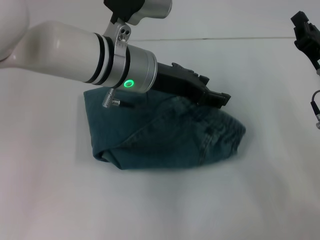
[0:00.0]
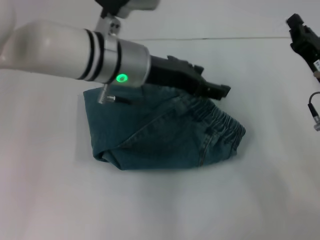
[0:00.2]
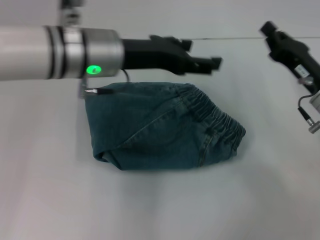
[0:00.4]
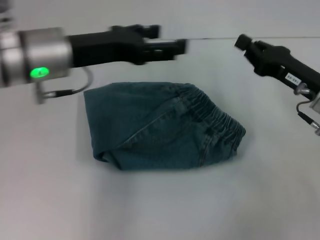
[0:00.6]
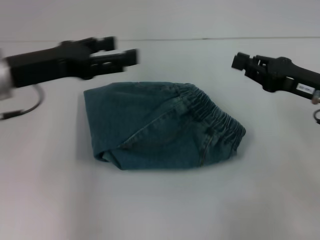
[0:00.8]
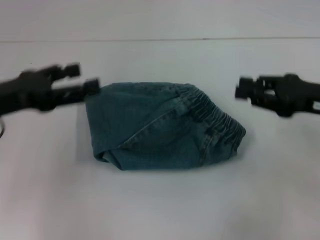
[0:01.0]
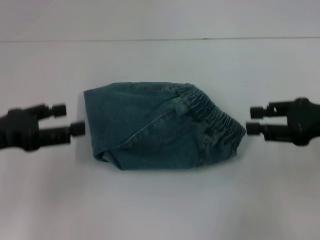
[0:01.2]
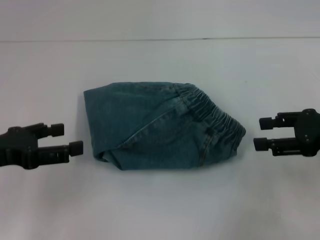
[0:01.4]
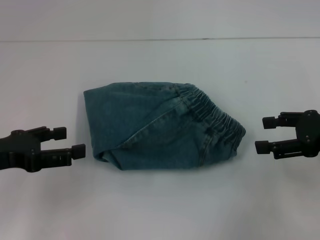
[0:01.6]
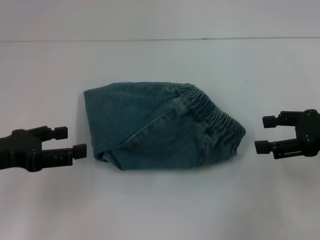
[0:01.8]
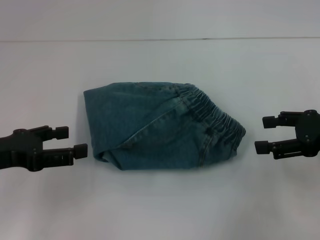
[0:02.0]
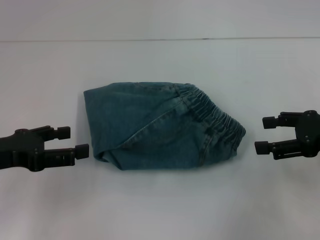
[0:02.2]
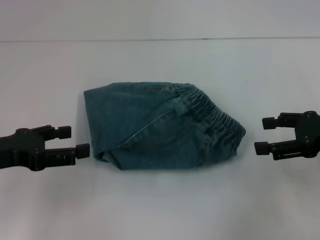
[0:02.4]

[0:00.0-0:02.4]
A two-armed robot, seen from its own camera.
0:00.0 to 0:01.2: The right gripper is displaced upward by roughly 5 cm, while the left gripper travels to the left and backward by some 25 cm, and opens its fingers.
0:01.2 to 0:02.4: The right gripper opens up.

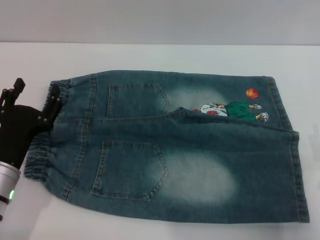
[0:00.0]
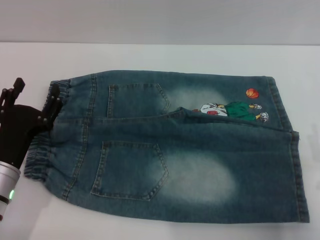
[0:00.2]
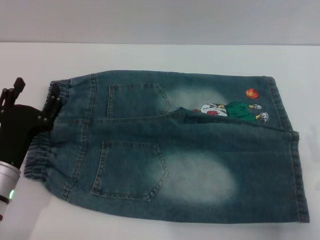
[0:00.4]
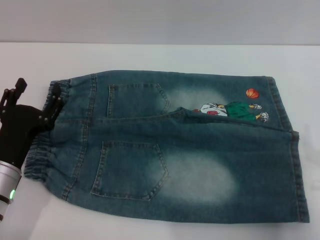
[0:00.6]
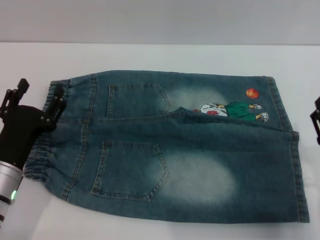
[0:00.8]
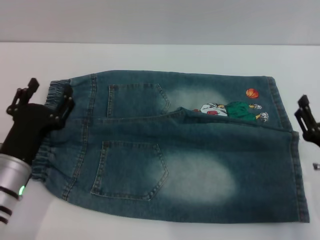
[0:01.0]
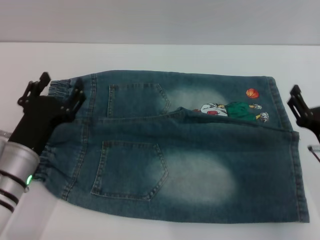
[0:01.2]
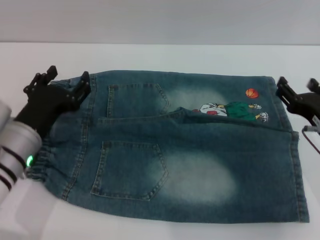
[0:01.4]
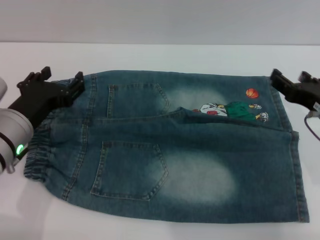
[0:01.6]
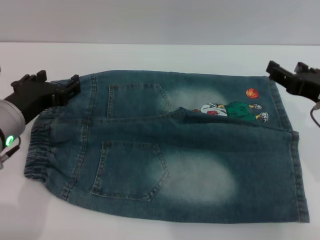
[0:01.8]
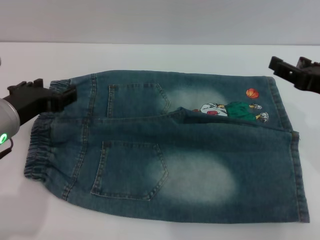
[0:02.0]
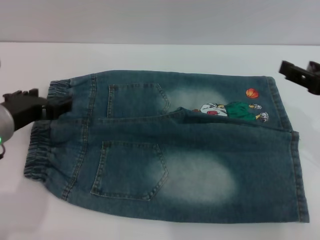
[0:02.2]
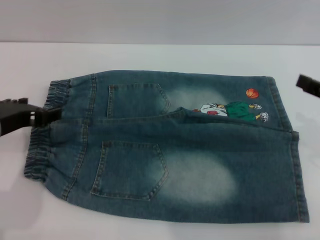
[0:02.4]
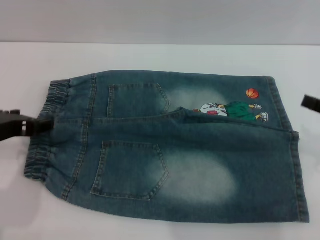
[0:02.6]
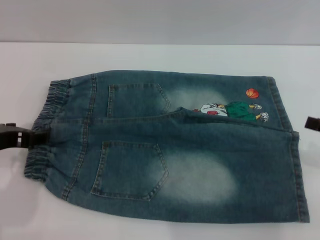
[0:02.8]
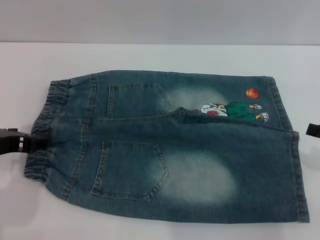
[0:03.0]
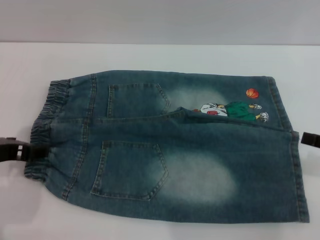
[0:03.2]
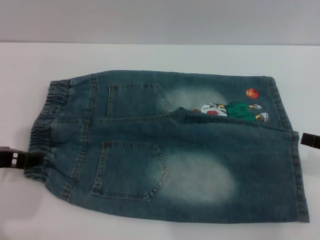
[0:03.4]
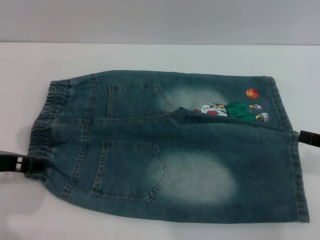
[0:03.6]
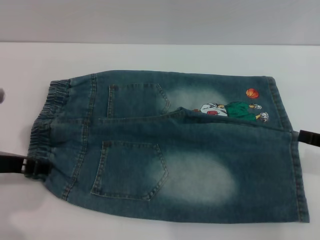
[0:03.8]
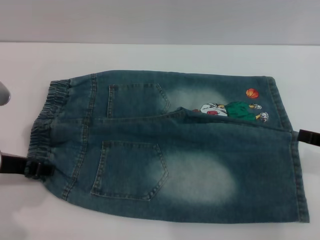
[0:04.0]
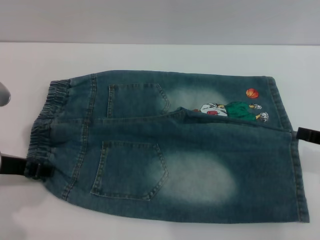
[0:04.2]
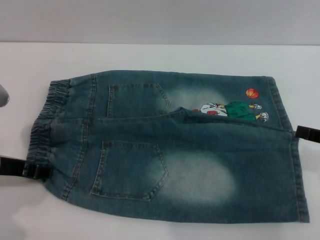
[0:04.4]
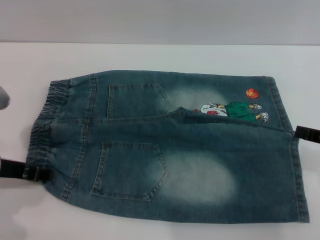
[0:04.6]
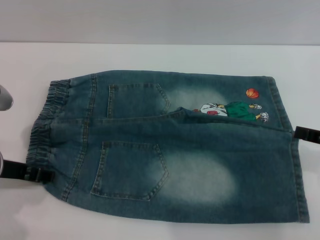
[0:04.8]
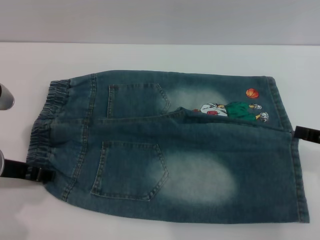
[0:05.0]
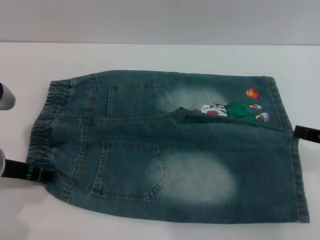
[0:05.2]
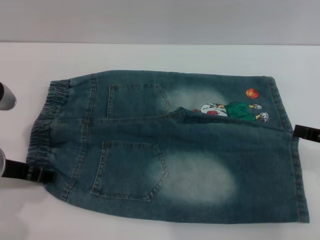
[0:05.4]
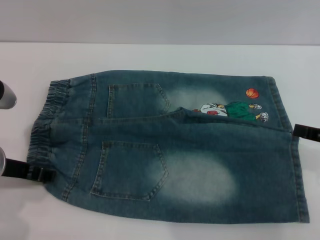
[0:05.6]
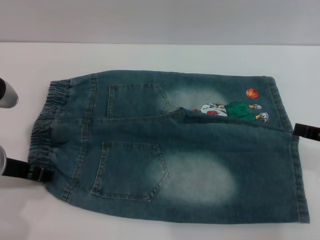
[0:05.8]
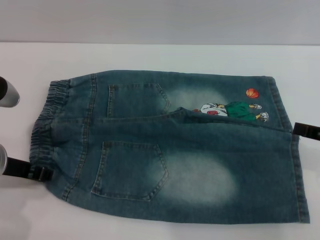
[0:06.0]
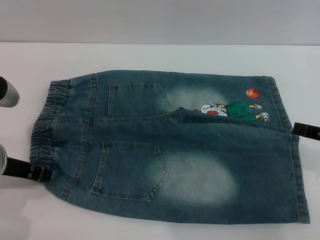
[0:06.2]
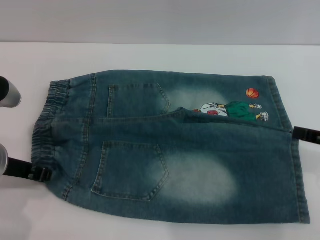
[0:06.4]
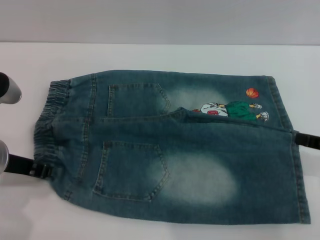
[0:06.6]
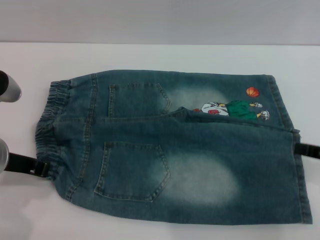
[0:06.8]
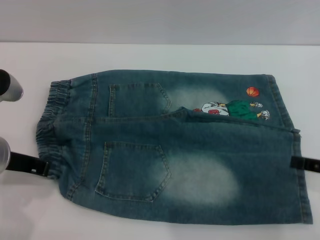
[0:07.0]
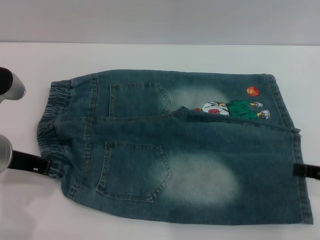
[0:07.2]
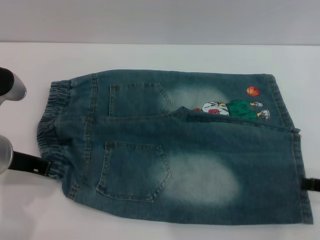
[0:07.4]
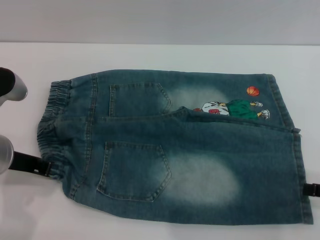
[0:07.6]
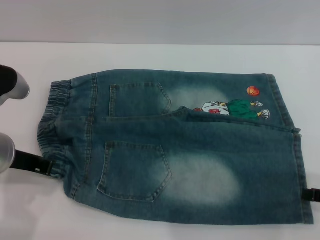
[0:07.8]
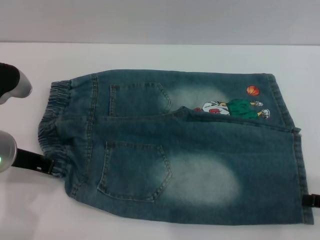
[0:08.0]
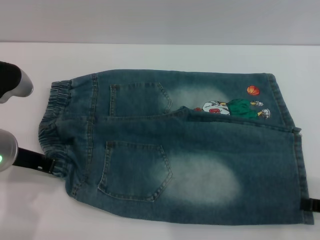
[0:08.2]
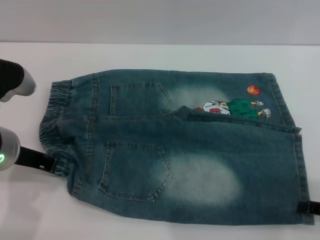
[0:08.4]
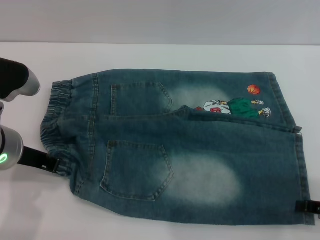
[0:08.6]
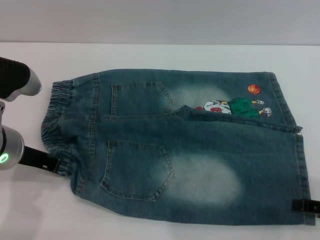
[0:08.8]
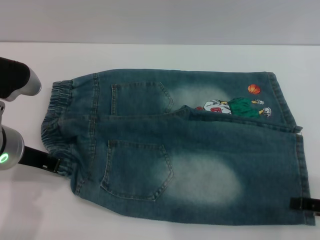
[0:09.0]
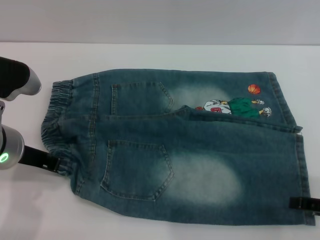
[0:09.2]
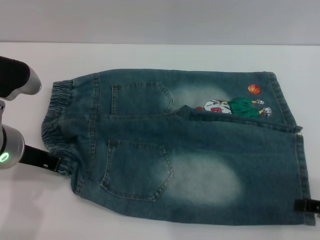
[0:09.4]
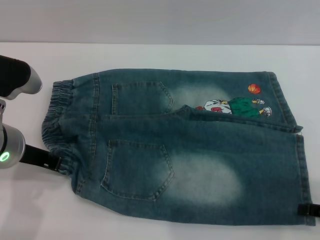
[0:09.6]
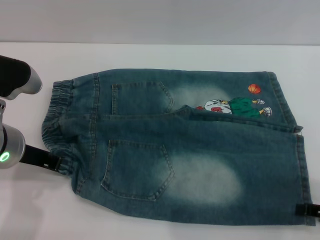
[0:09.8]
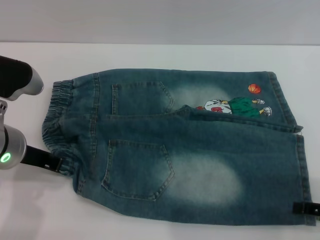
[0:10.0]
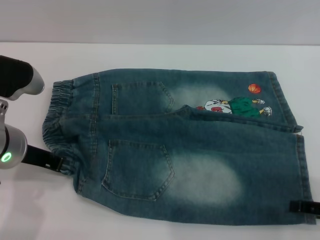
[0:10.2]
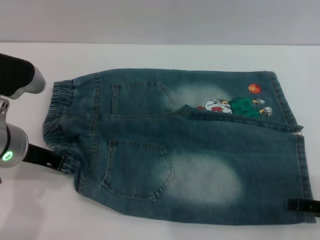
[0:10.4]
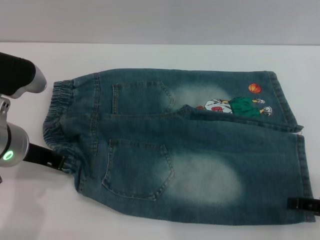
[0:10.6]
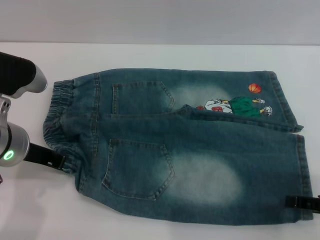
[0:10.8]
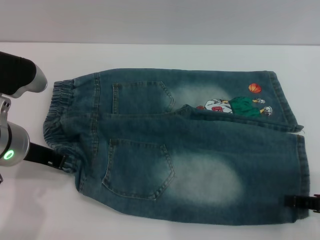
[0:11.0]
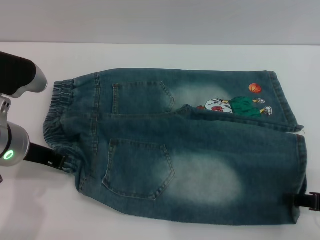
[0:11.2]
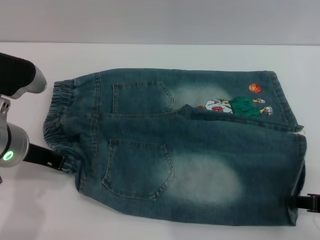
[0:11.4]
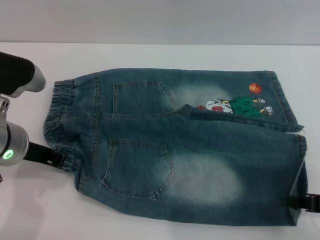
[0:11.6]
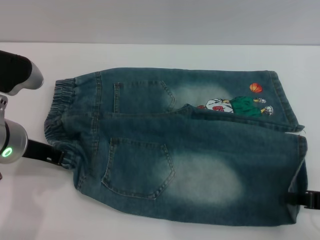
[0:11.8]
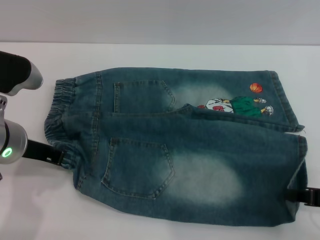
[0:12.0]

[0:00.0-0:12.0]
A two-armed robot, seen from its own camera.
0:00.0 to 0:01.6: The left gripper heads upward, covering some 5 cm; the right gripper goes approximately 10 cm forward and upward.
0:01.6 to 0:03.0: The right gripper shifts about 10 cm to the right and backward; the left gripper moves upward, about 5 cm.
0:03.0 to 0:04.4: The grippers make only small movements.
0:04.4 to 0:06.0: Neither gripper changes place.
0:06.0 to 0:07.6: The left gripper closes its fingers. Meanwhile the right gripper changes place by some 5 cm.
0:07.6 to 0:09.0: The grippers make only small movements.
0:09.0 to 0:10.4: Neither gripper changes place.
0:10.4 to 0:12.0: The right gripper closes.

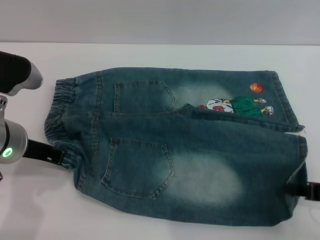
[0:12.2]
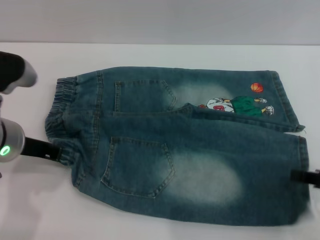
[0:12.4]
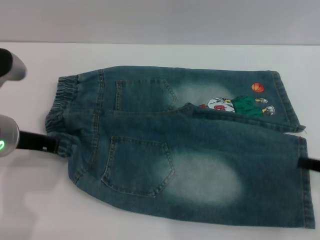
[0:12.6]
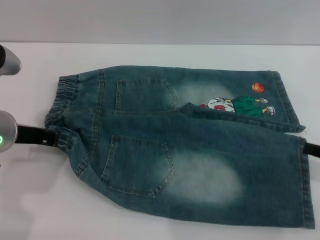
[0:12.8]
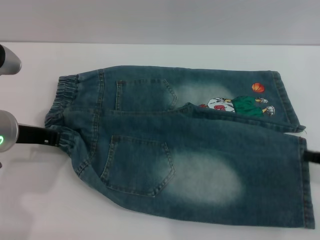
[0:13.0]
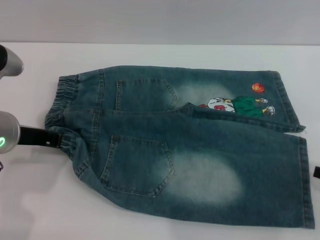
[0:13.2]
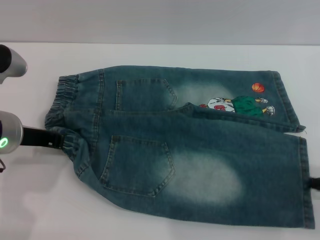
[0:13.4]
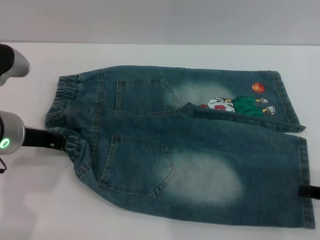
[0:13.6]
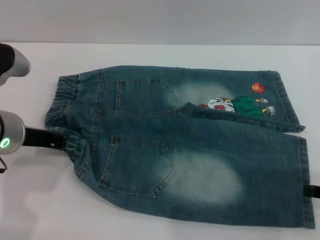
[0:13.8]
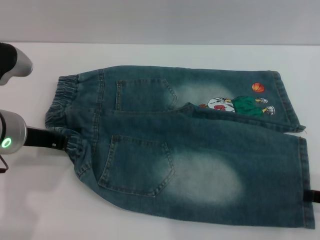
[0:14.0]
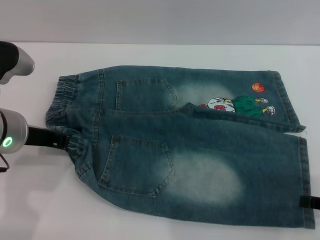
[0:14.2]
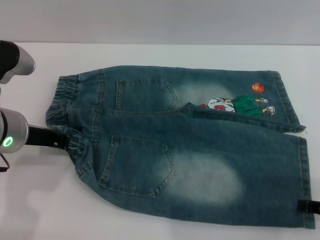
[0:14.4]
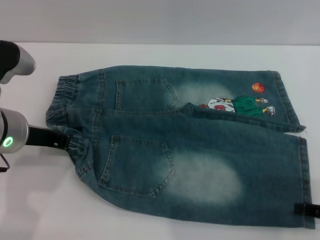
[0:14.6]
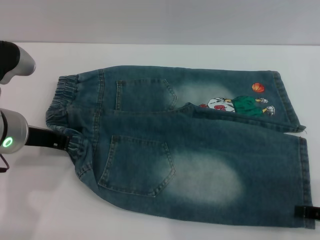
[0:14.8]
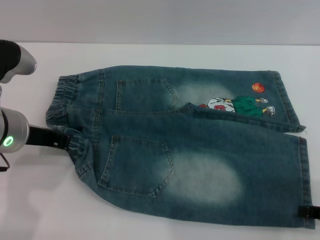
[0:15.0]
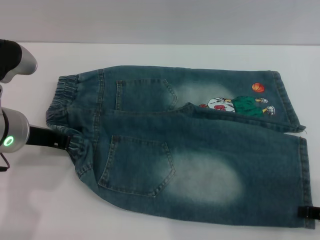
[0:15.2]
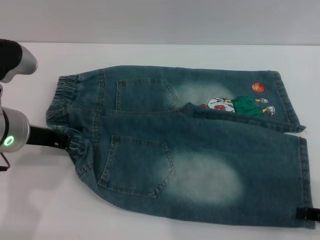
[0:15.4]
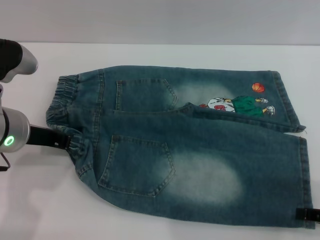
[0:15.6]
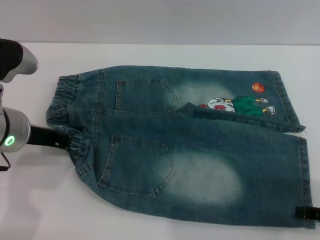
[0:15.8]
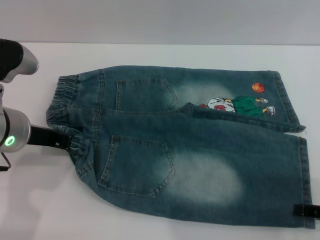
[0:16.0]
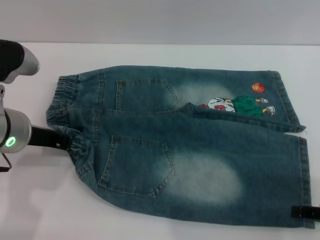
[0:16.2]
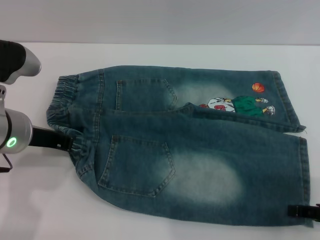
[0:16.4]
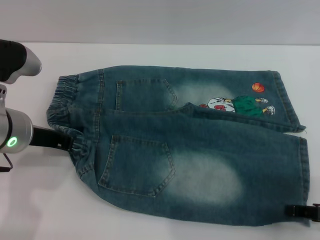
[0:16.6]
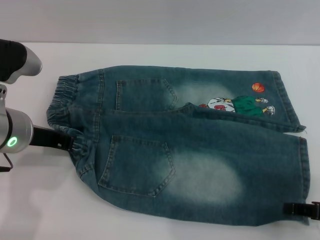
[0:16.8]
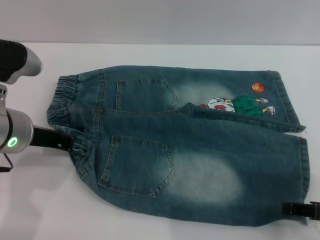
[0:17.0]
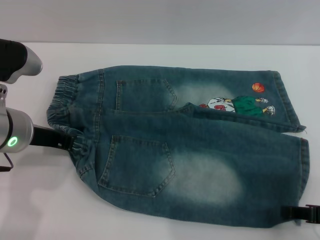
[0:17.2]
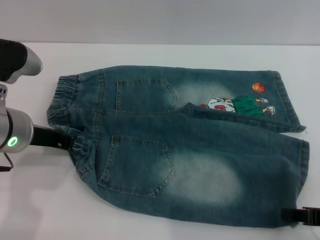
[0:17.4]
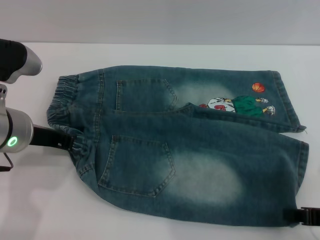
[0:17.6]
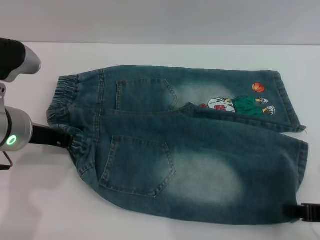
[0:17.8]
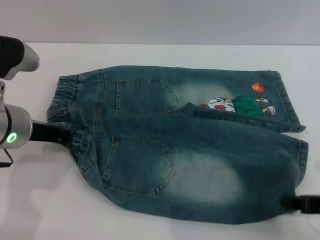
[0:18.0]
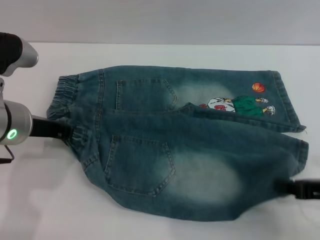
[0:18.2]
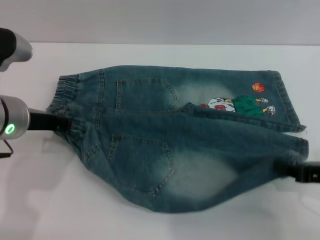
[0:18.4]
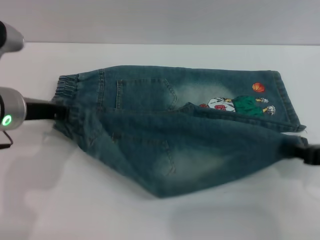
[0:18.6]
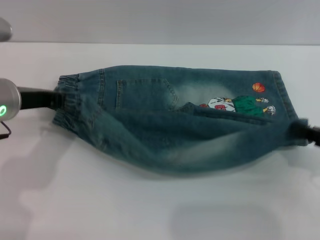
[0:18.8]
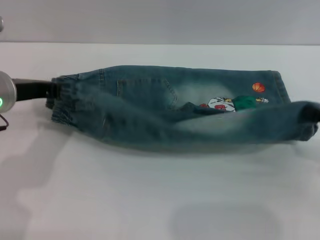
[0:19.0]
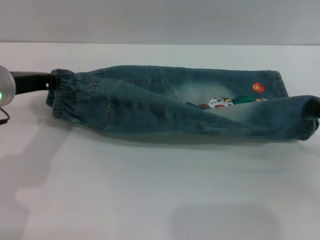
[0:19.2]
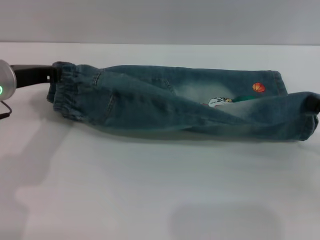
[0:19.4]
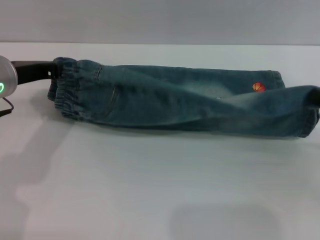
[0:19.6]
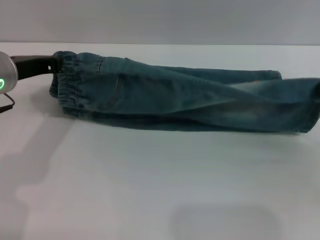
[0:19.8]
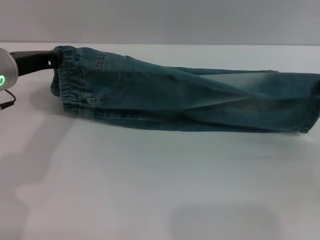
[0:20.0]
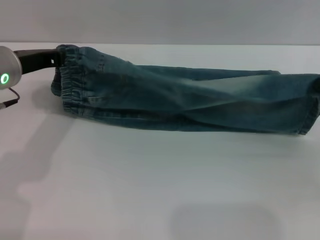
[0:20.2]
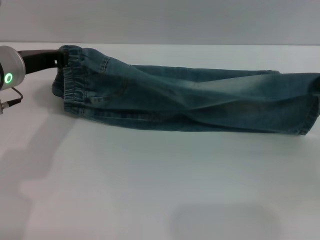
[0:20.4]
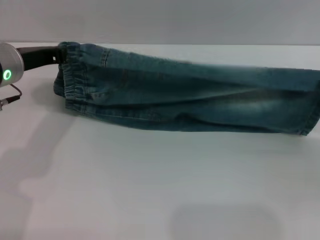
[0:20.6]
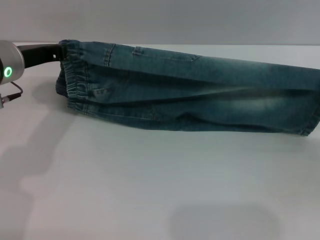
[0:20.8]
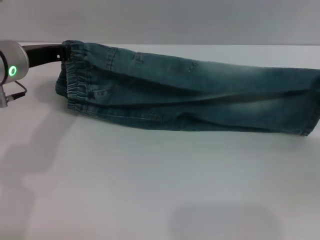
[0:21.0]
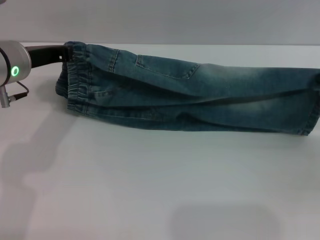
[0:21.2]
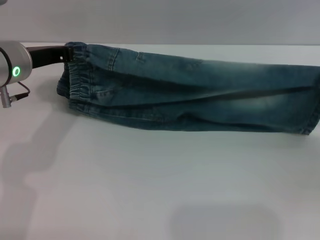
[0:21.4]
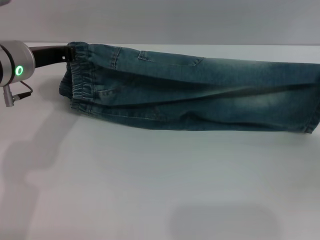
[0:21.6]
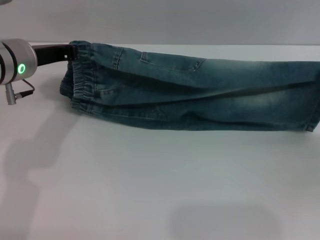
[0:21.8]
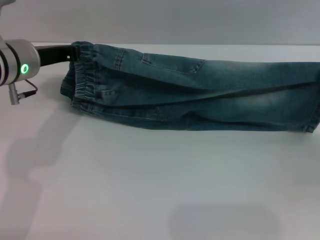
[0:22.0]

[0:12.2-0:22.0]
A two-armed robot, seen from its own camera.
0:12.2 to 0:13.6: The right gripper opens its fingers.
0:13.6 to 0:16.4: There are only small adjustments of the grippers.
0:16.4 to 0:17.8: The right gripper closes up.
0:17.8 to 0:19.2: The right gripper moves roughly 5 cm.
0:20.6 to 0:22.0: The grippers make only small movements.
